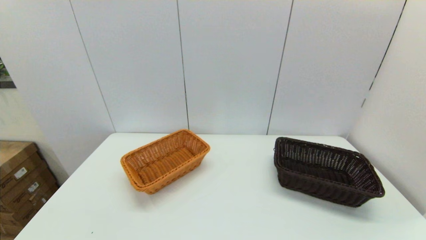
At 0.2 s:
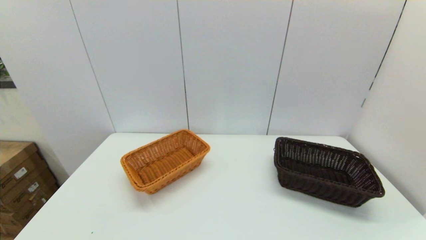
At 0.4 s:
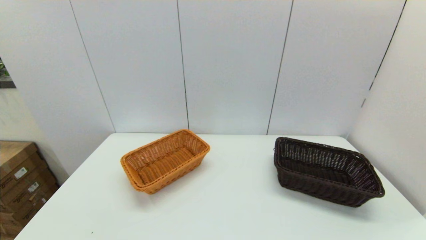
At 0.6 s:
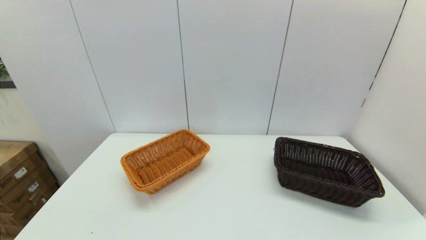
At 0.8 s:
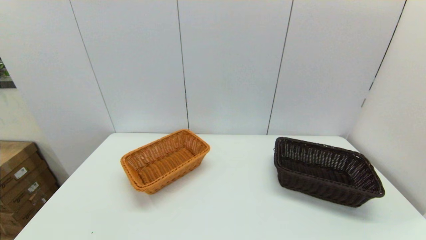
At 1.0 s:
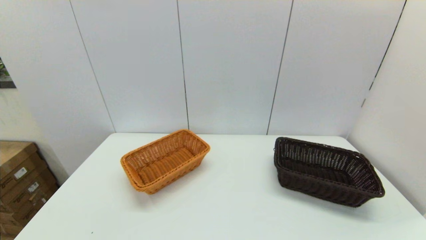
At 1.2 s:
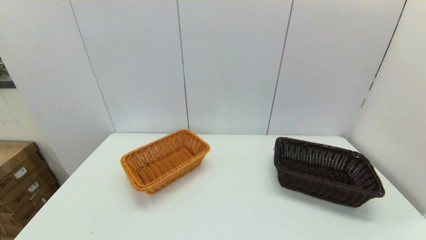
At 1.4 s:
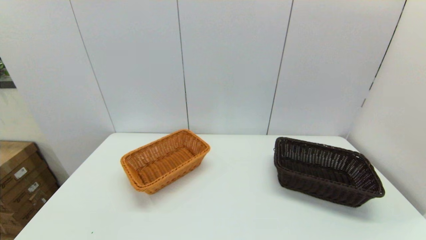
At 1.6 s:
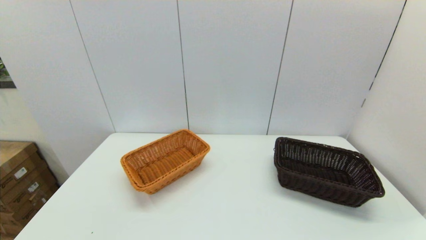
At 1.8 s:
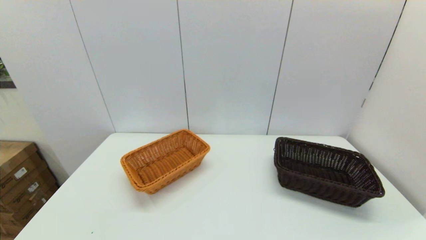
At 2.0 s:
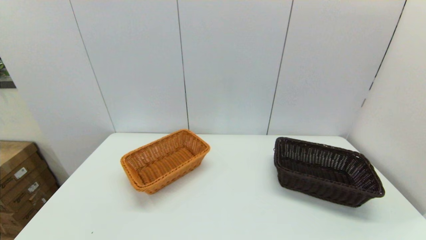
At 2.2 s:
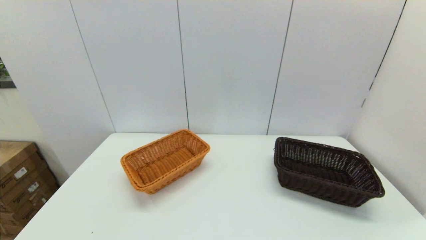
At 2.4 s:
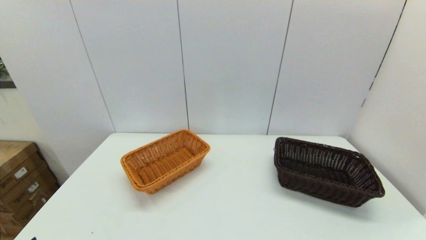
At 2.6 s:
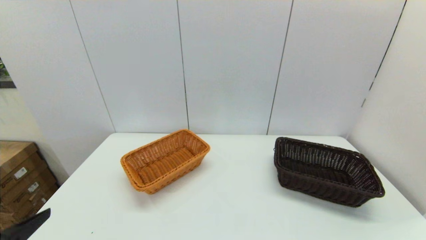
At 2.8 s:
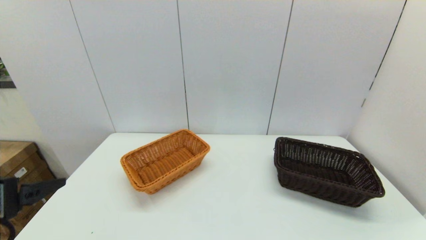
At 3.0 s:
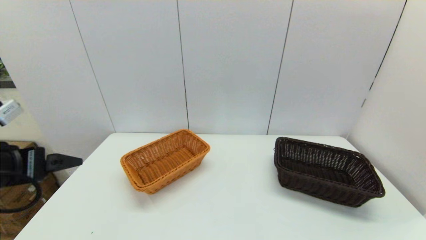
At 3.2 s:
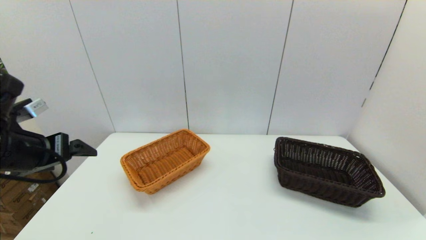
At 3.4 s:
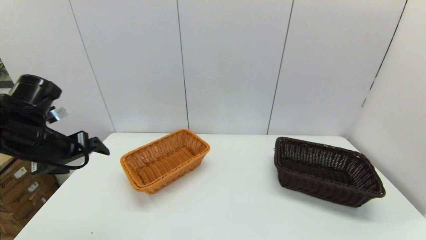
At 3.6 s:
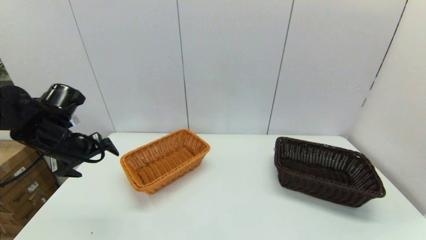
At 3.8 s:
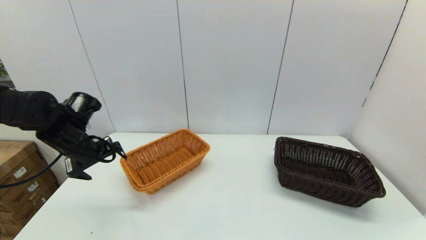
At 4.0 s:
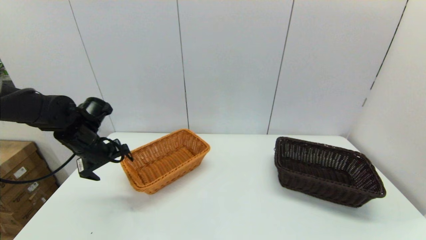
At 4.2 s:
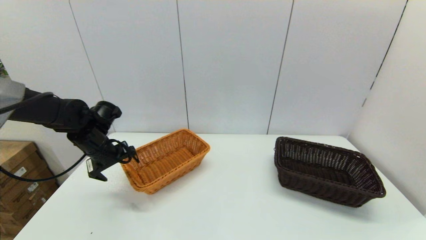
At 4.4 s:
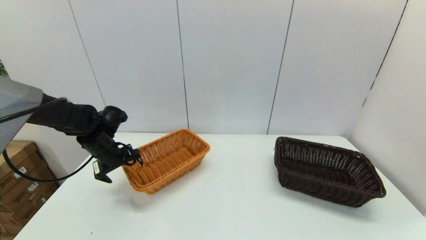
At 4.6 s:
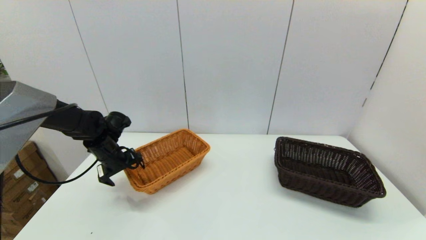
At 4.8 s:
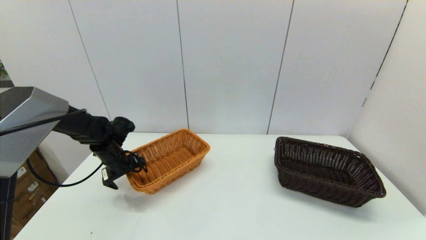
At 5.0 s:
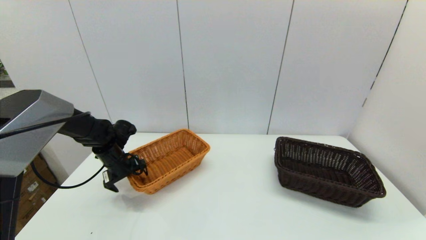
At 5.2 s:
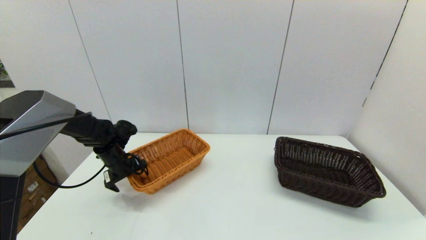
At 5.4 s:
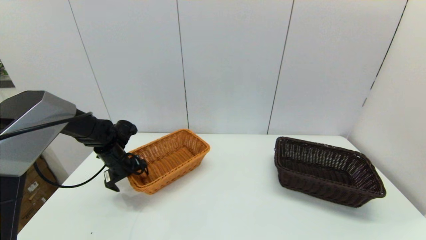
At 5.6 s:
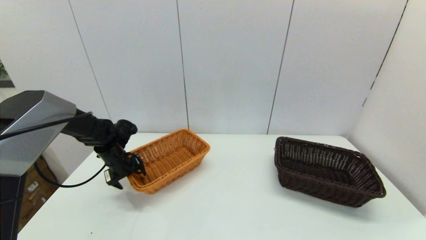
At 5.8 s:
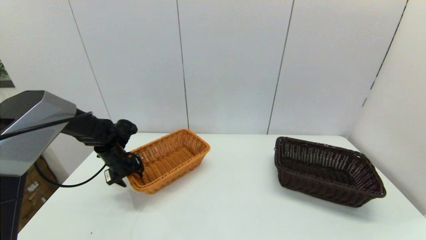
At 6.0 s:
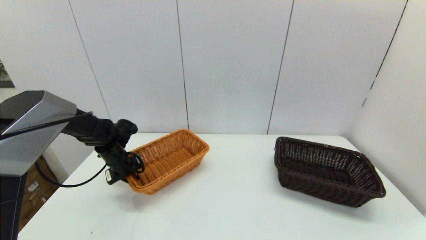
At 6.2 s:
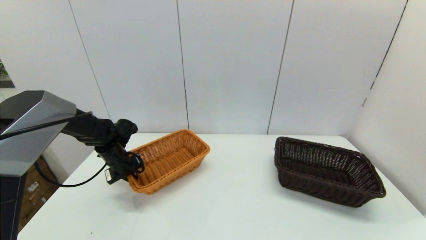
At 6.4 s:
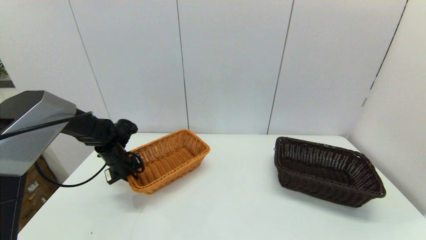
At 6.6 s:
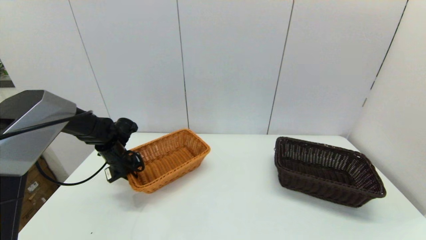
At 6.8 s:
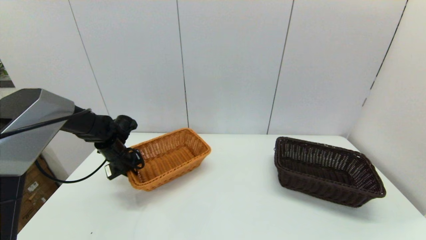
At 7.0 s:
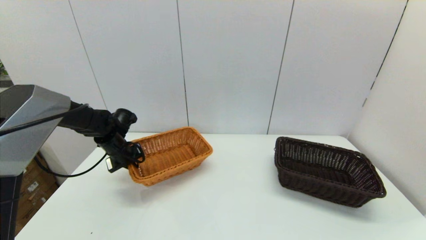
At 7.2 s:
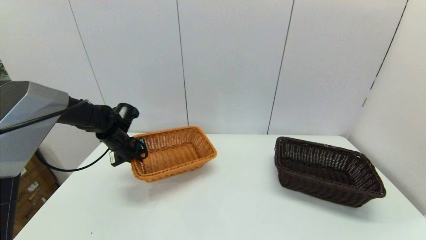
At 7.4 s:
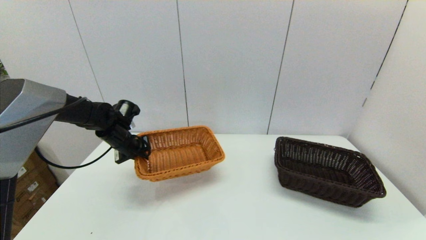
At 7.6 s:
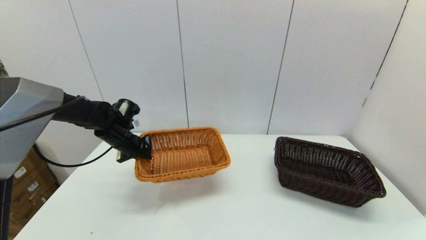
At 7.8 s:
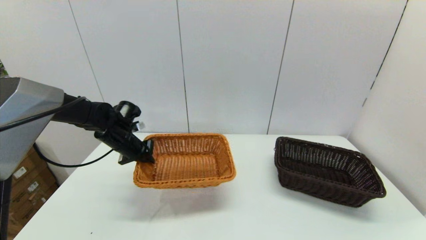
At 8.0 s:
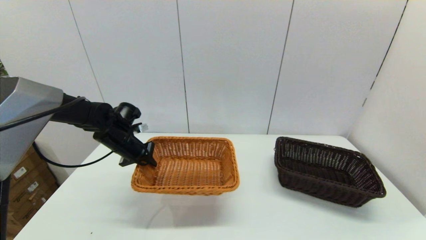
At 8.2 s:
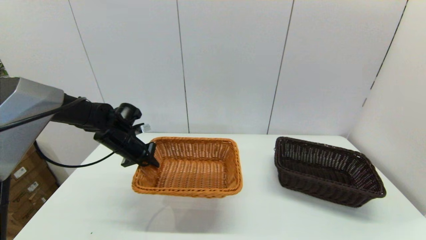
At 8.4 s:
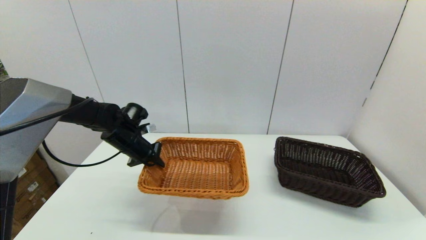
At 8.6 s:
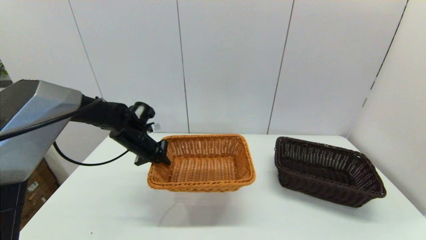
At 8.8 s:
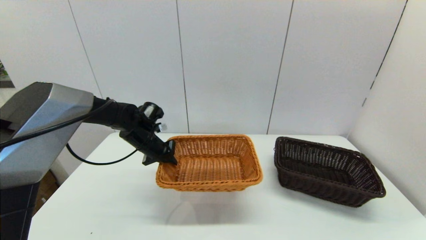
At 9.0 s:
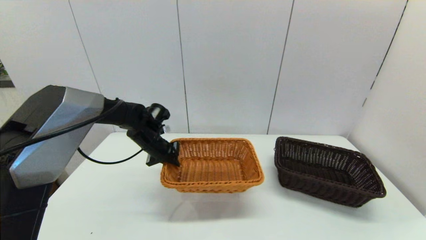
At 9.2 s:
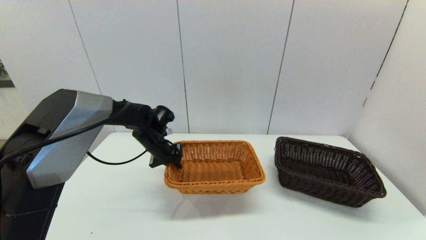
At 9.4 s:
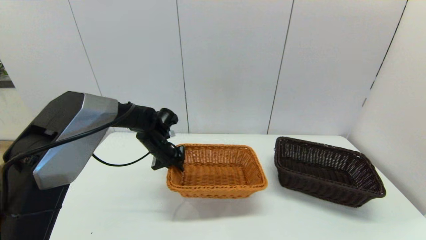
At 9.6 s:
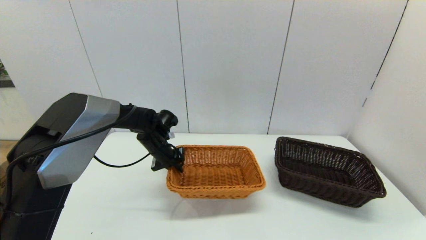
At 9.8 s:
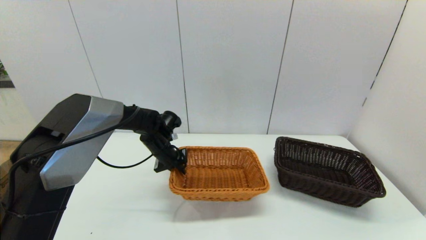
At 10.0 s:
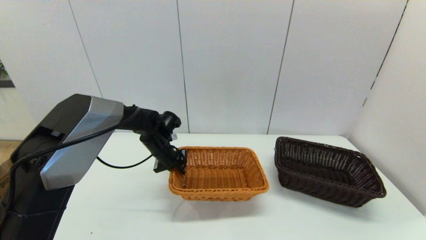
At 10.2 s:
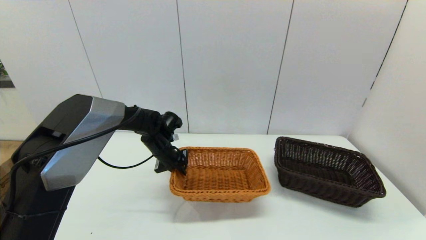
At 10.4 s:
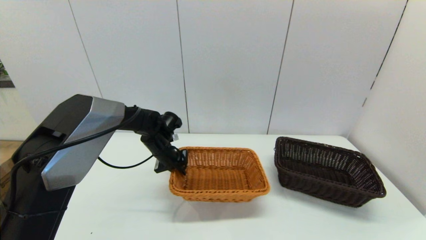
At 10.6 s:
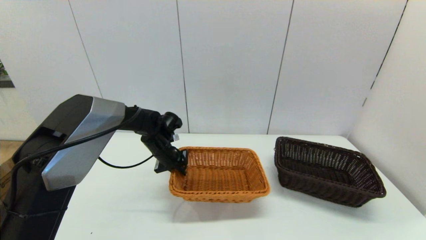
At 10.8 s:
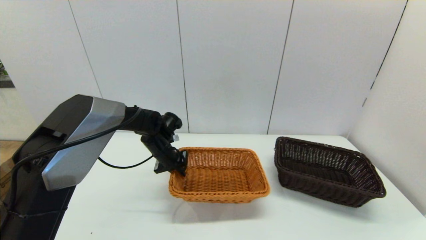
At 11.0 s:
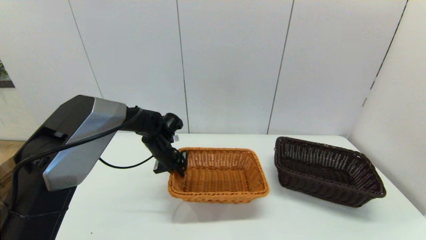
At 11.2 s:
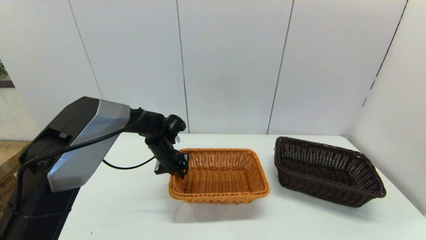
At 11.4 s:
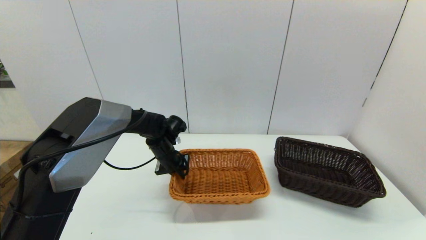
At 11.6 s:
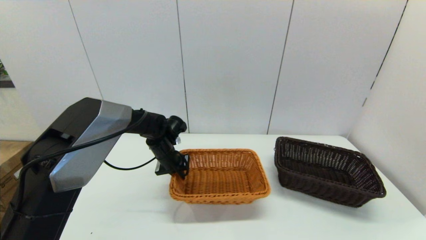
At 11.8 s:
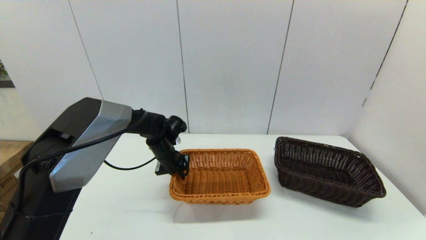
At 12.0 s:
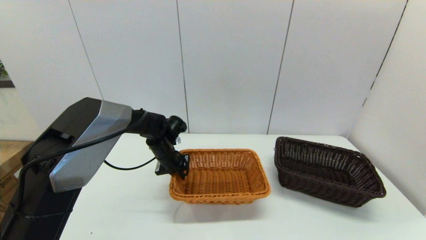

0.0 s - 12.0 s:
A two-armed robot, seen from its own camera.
Task of the whole recording: stack a basket on top of another basket.
Step, 2.2 s - 6.8 s: Grasp the light basket with the left gripper.
0.0 s - 1.6 s: Neither gripper changes place.
1.6 s - 3.0 s: The left gripper travels forward and upward by some 25 cm.
3.0 s - 4.4 s: The left gripper is displaced forward and downward by roughly 25 cm.
4.4 s - 6.0 s: The left gripper moves downward, about 5 cm, and closes its fingers.
6.0 s - 7.6 s: The left gripper travels upward by roughly 5 cm.
7.6 s - 9.0 s: The left gripper shifts some 10 cm to the right.
9.0 s - 12.0 s: The grippers move only a little.

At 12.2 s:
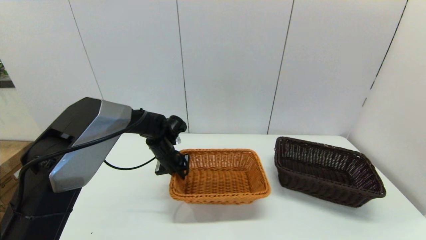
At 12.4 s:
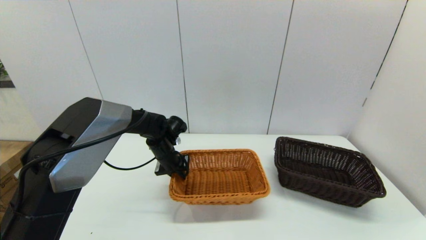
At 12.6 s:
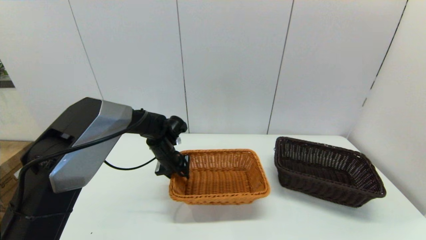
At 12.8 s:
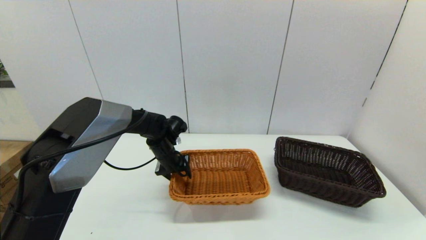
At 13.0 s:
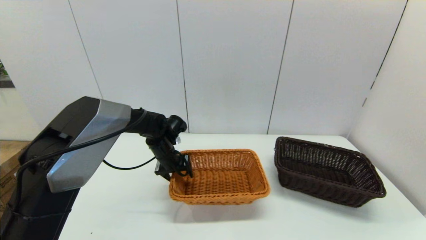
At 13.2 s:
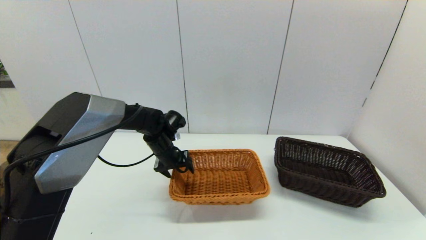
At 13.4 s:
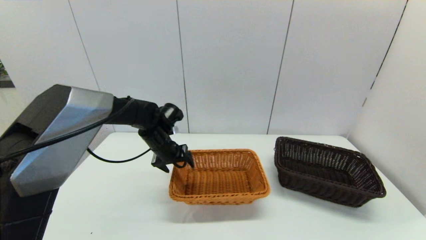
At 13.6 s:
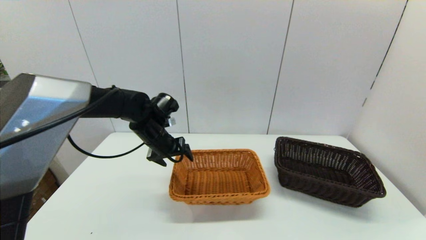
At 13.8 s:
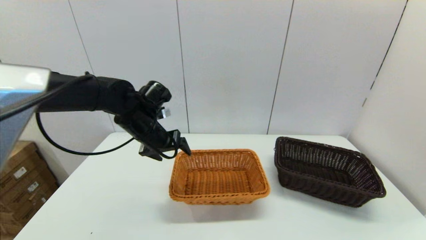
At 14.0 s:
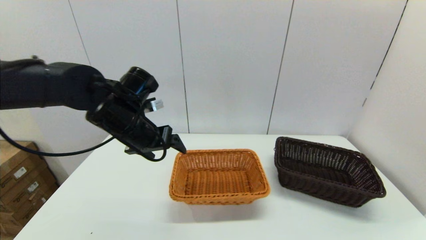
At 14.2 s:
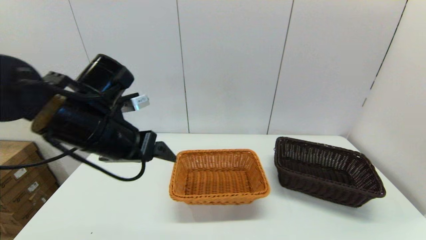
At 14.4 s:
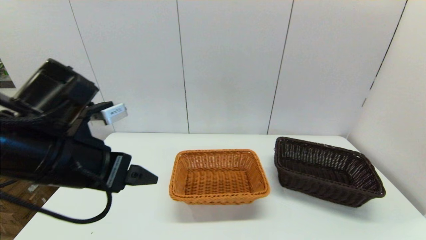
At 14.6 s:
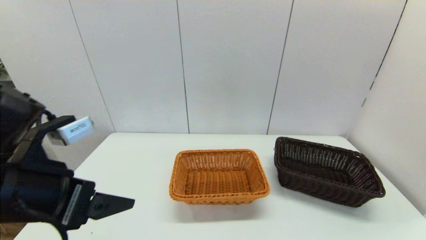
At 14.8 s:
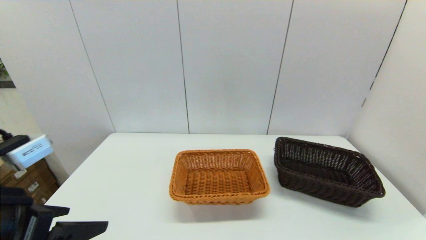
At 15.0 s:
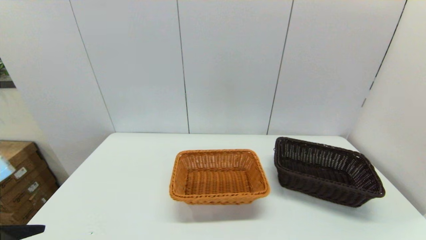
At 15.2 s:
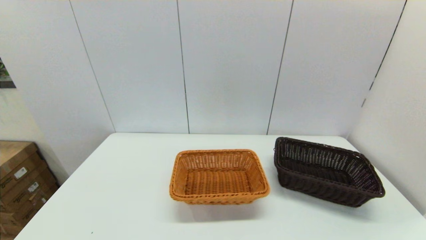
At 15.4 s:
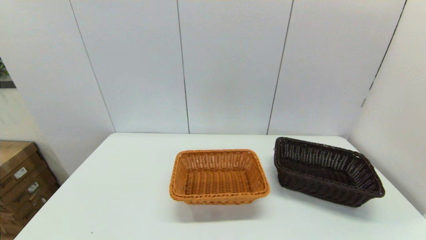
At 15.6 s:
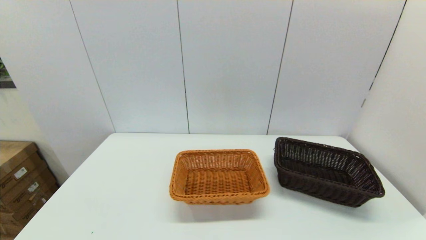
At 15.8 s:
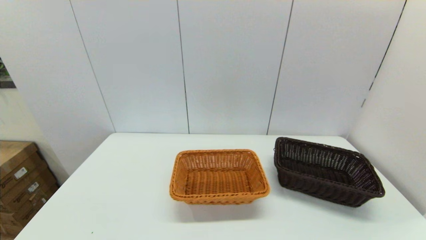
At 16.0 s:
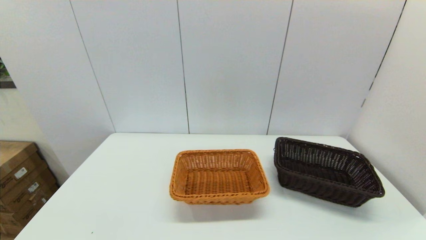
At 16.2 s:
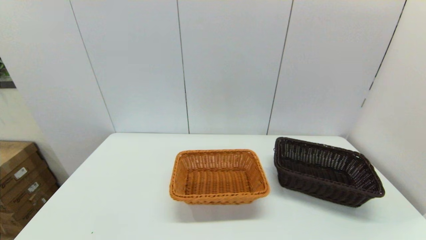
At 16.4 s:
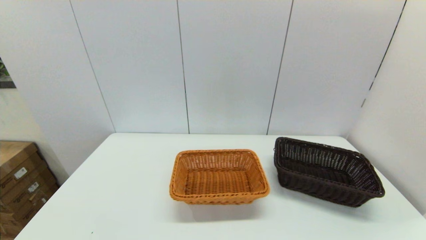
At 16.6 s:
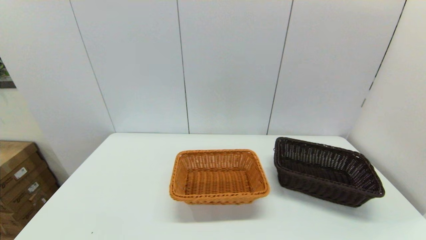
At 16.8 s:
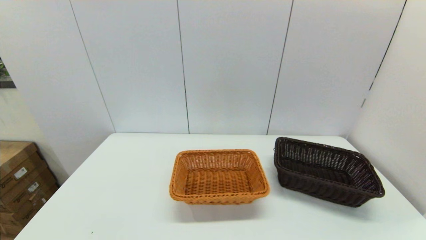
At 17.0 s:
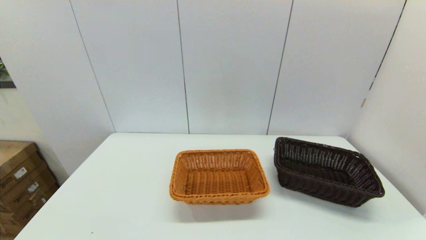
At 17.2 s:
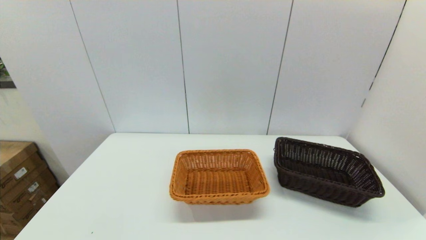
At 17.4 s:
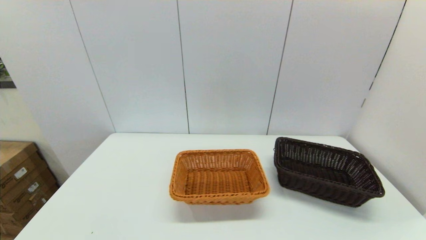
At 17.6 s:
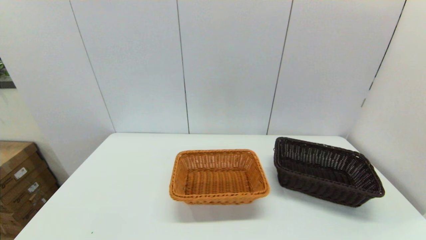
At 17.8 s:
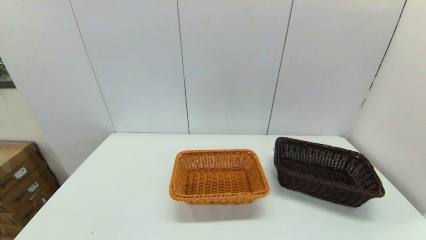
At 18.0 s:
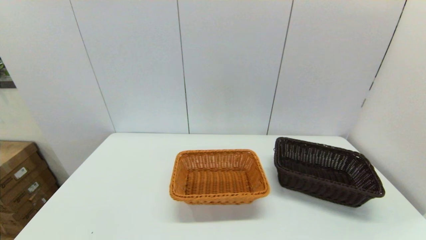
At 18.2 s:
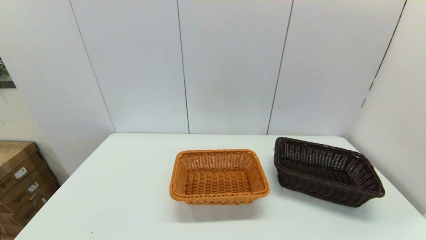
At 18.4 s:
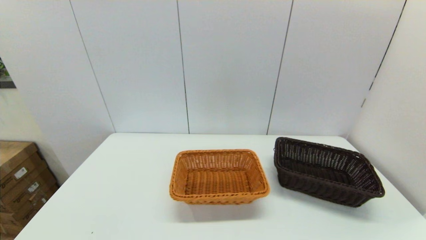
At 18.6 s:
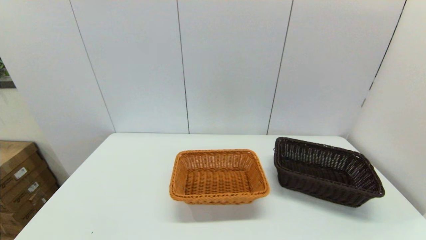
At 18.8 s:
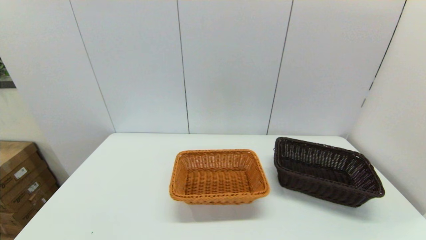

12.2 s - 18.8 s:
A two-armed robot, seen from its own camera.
Task of the whole recording: stack a basket on top of another basket.
Step, 12.2 s - 14.2 s: Place the light basket on the middle of the table with the left gripper.
12.2 s - 13.8 s: The left gripper shifts roughly 15 cm upward and backward, and opens.
13.8 s - 15.4 s: The left gripper moves backward and to the left, roughly 35 cm.
